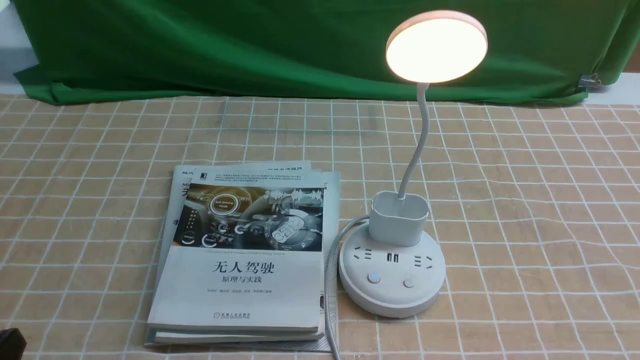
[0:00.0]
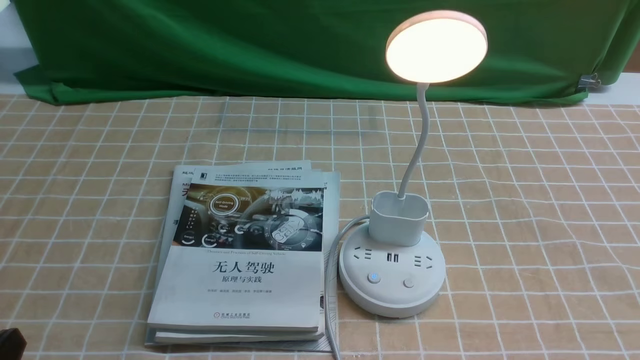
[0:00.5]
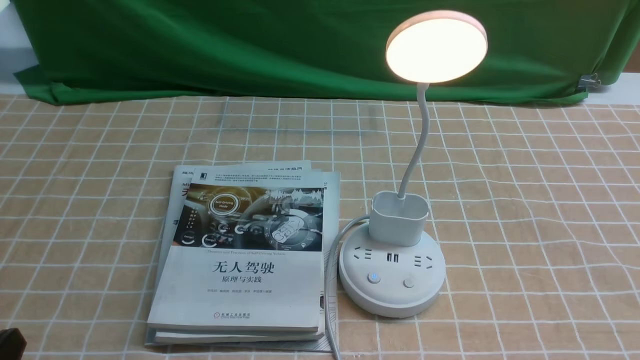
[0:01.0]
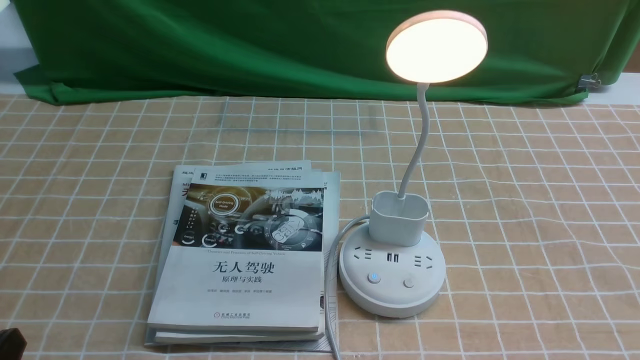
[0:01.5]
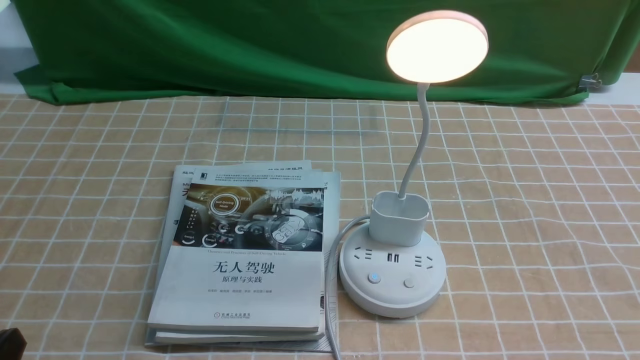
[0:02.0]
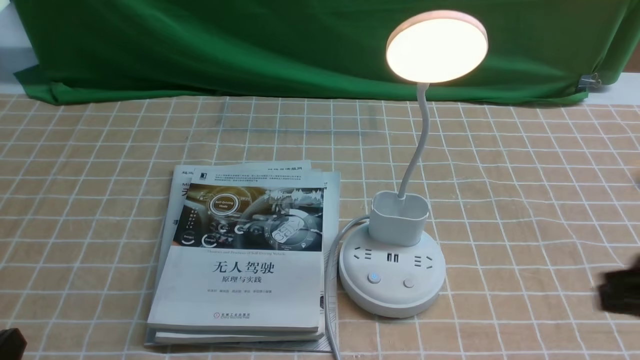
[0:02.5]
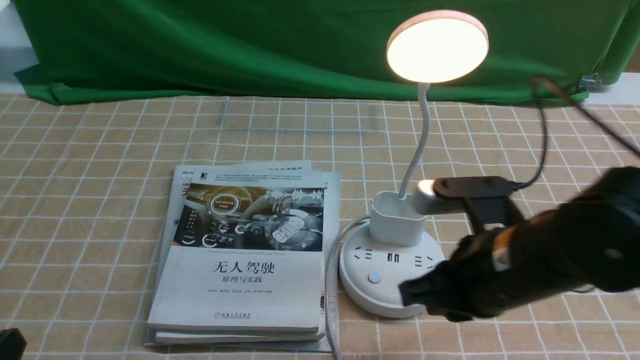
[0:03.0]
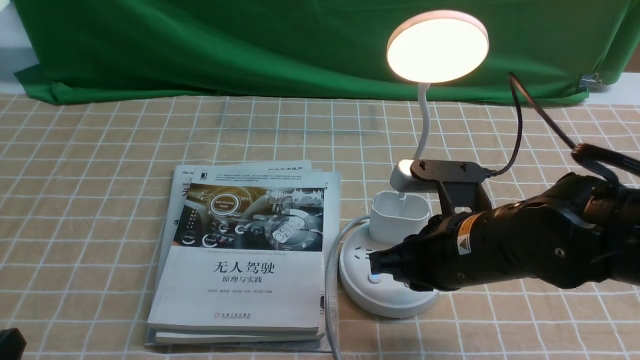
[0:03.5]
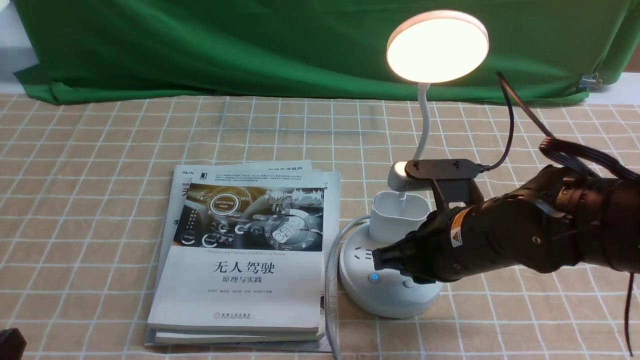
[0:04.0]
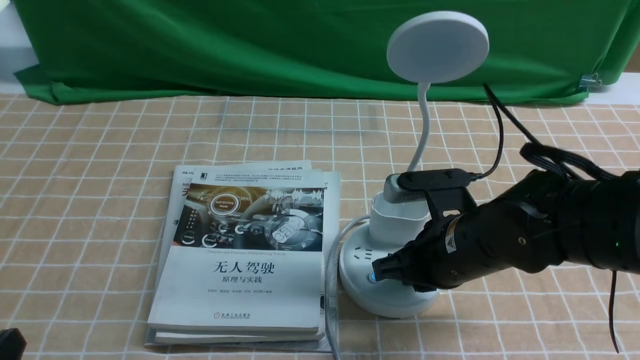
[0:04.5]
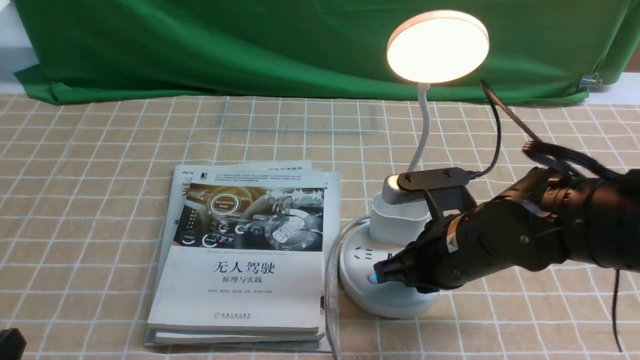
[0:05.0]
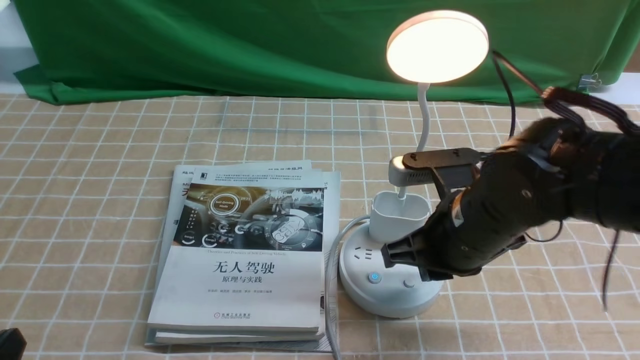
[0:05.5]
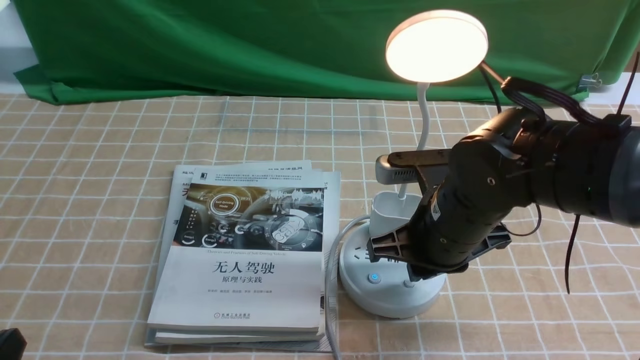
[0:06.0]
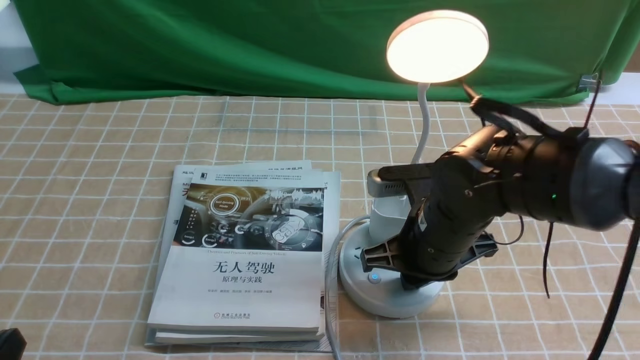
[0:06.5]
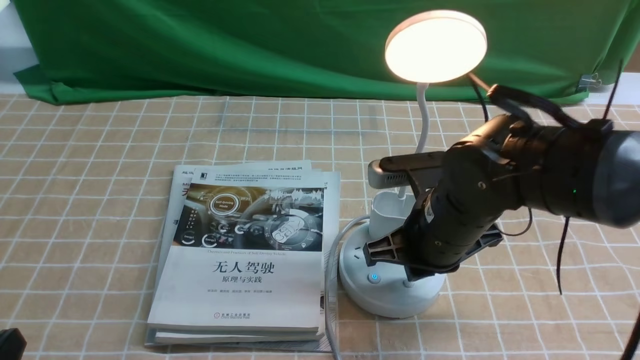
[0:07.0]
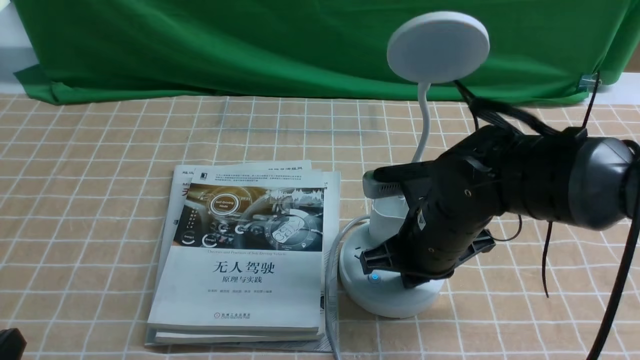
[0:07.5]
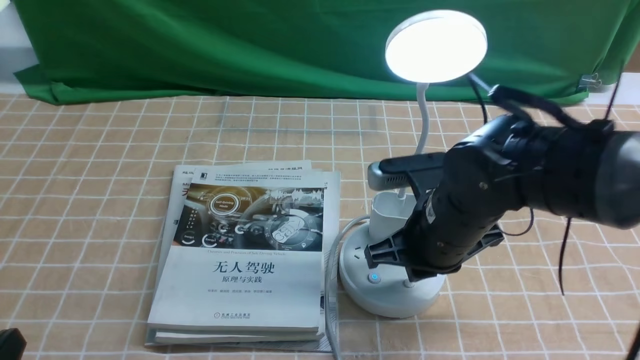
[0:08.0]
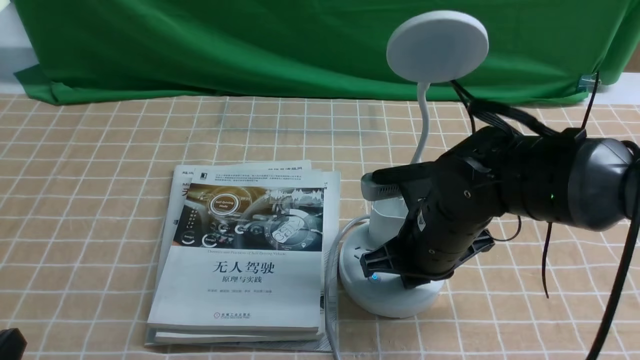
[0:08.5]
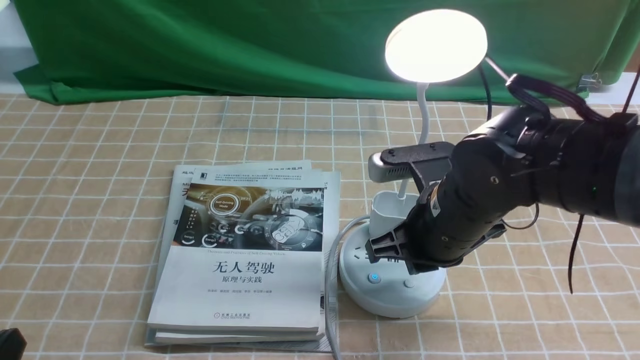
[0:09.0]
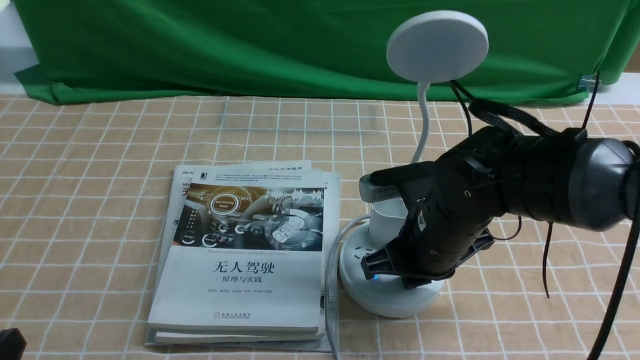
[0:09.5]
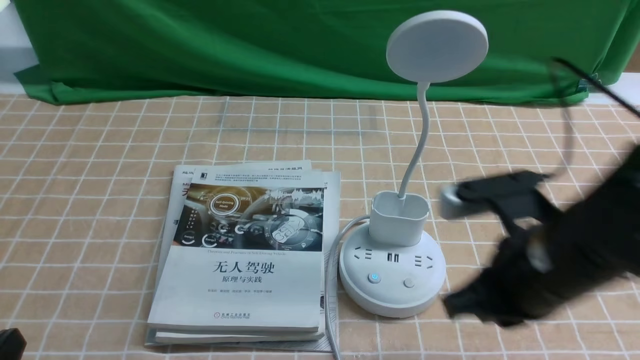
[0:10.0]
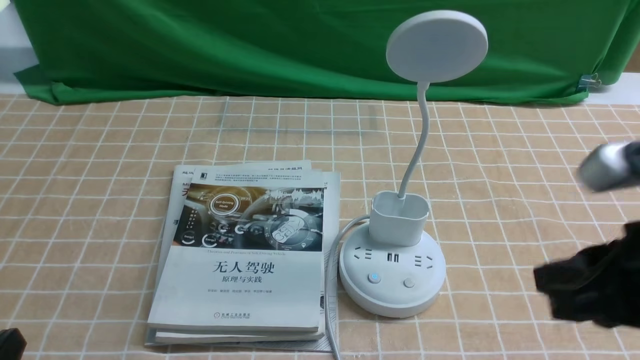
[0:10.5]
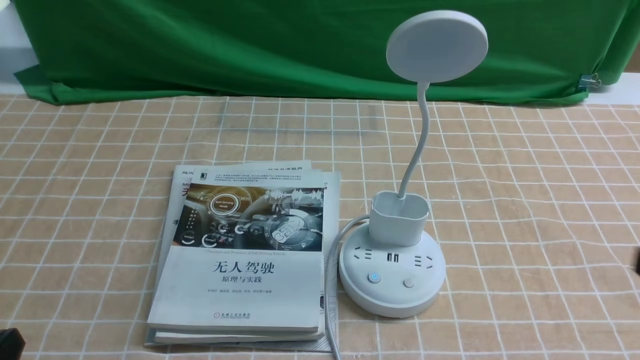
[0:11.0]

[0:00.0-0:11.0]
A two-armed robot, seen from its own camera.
Task of the whole recording: turn off the desk lamp on the light coffee tablecloth by hand.
Step, 0:00.0 to 0:09.5: use the right arm to press the button switch on the lamp holder.
0:02.0 to 0:03.5: The right gripper travels forward and to the left by approximately 25 cm.
0:03.5 to 0:07.5: The grippers move only a little.
0:09.0 to 0:11.0: The right gripper goes approximately 25 cm backward and to the right.

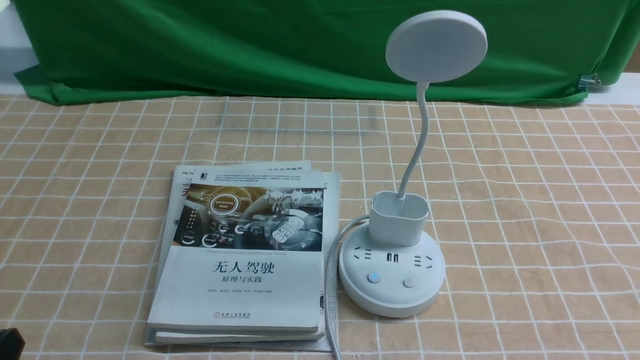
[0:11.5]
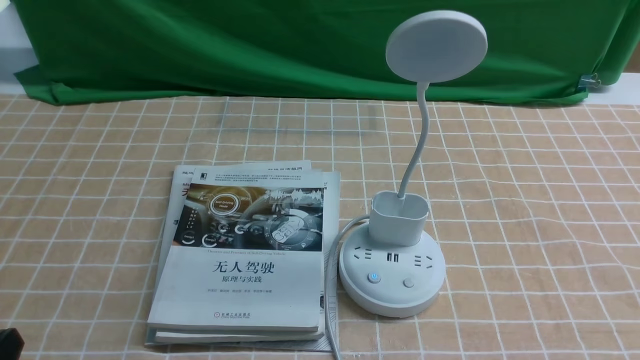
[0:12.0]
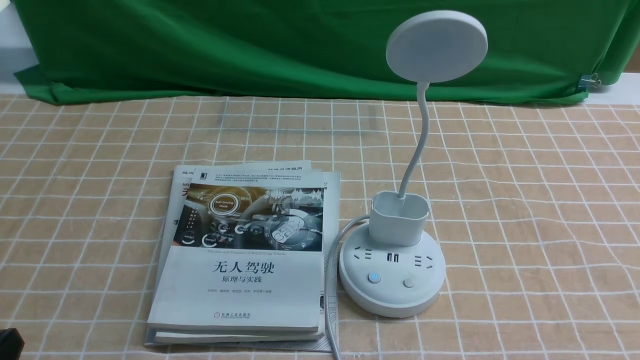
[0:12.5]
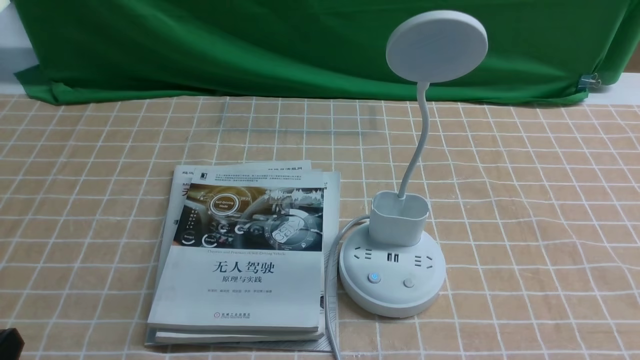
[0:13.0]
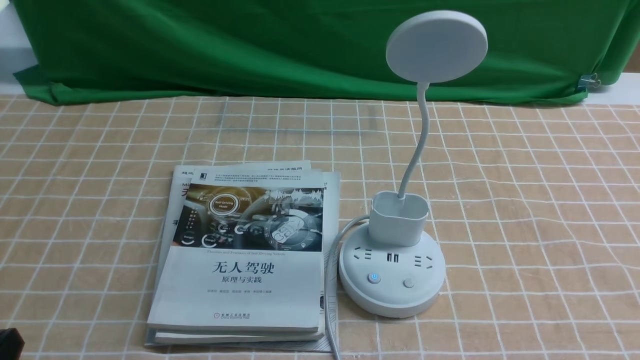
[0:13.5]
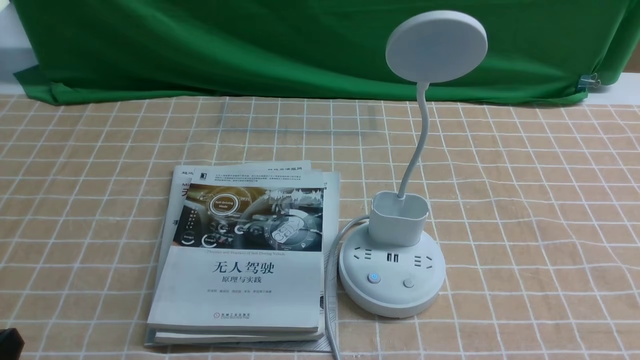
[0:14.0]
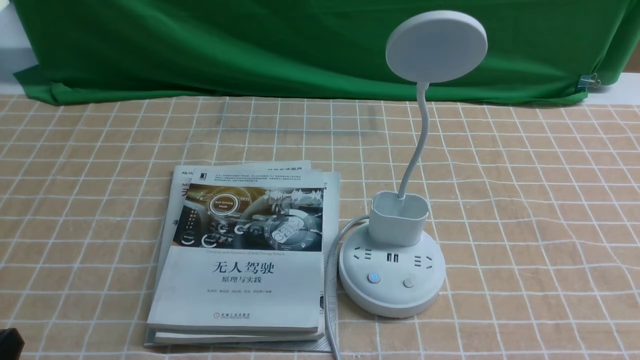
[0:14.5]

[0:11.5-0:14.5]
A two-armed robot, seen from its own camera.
Task of the whole recording: turn off the desk lamp on the light coffee tablecloth by hand.
0:13.0 to 0:14.5: The two grippers keep their place.
